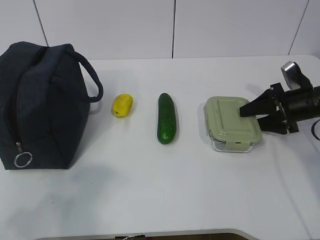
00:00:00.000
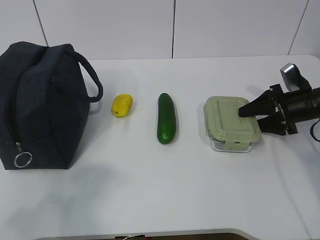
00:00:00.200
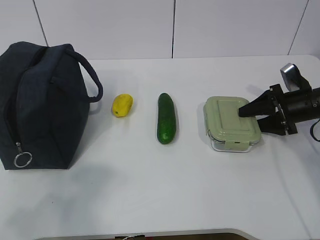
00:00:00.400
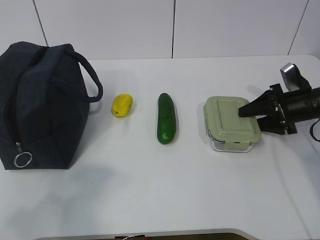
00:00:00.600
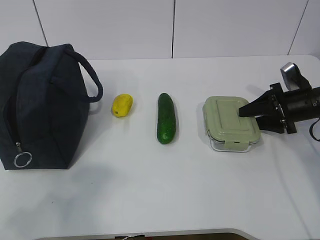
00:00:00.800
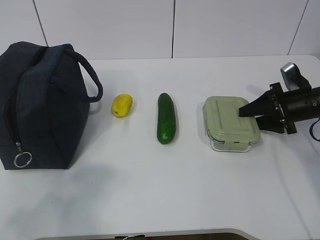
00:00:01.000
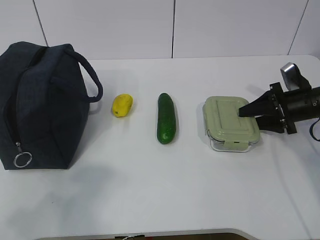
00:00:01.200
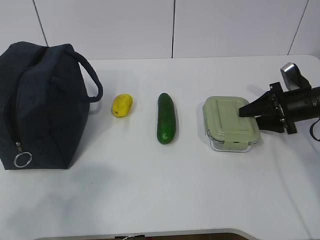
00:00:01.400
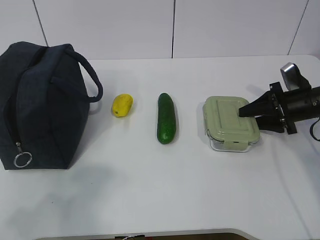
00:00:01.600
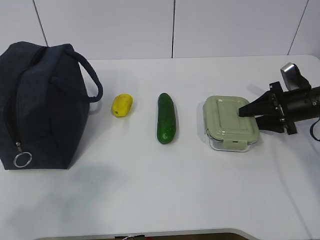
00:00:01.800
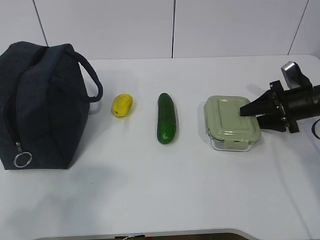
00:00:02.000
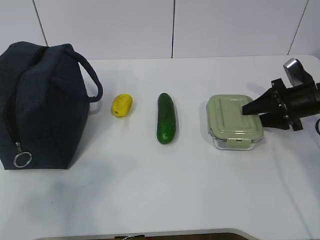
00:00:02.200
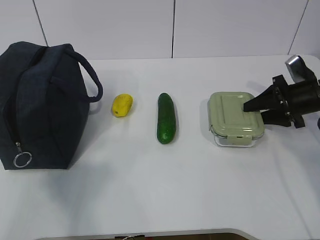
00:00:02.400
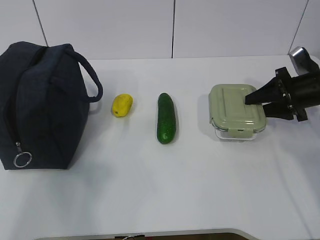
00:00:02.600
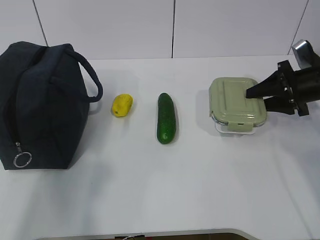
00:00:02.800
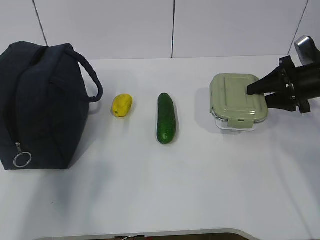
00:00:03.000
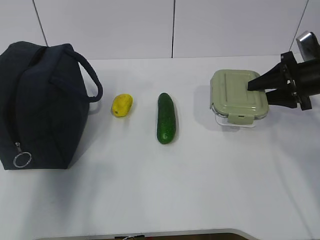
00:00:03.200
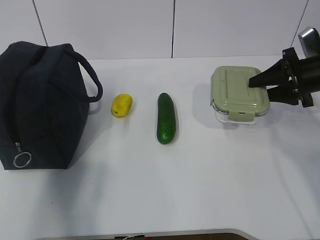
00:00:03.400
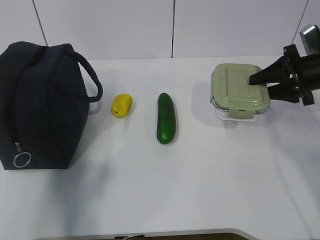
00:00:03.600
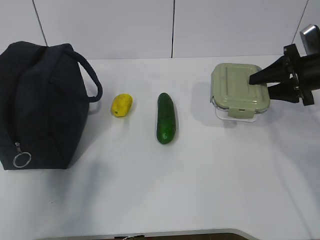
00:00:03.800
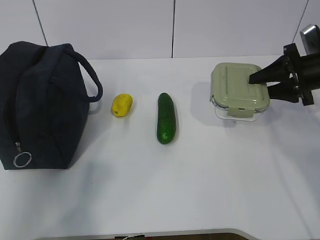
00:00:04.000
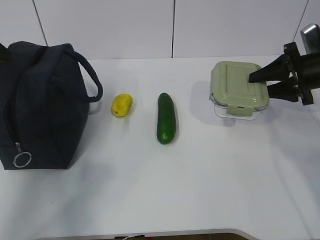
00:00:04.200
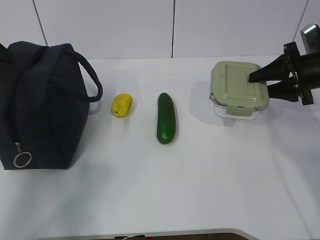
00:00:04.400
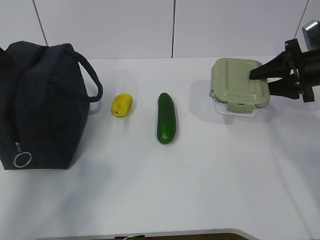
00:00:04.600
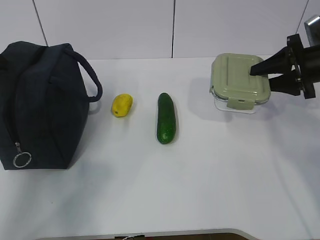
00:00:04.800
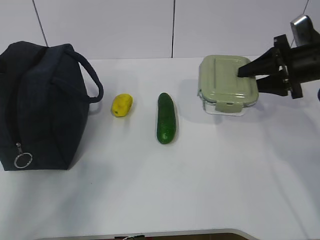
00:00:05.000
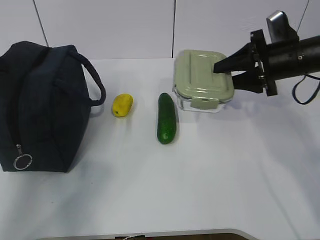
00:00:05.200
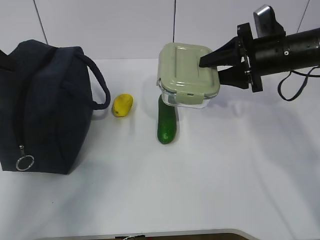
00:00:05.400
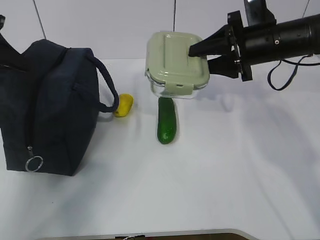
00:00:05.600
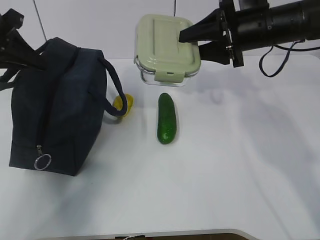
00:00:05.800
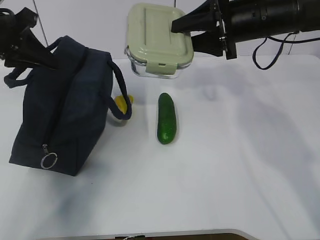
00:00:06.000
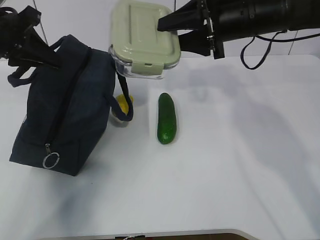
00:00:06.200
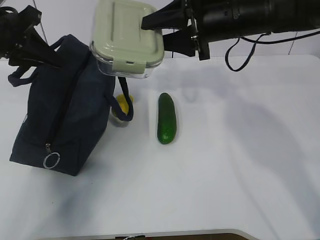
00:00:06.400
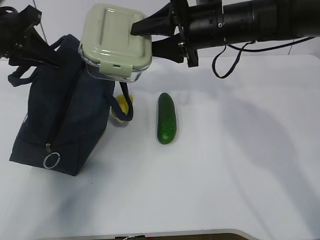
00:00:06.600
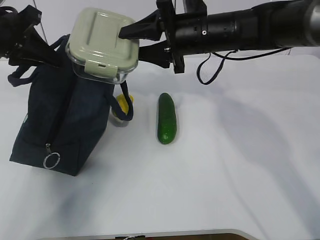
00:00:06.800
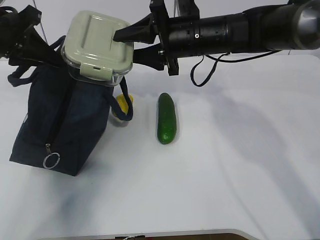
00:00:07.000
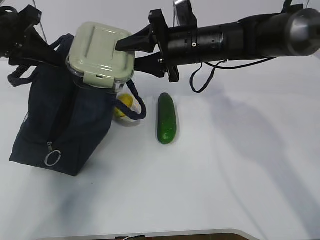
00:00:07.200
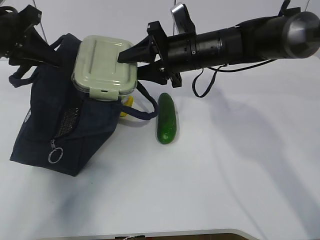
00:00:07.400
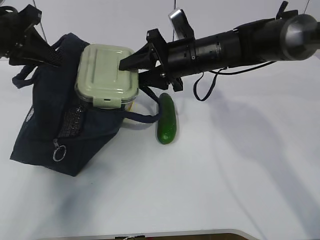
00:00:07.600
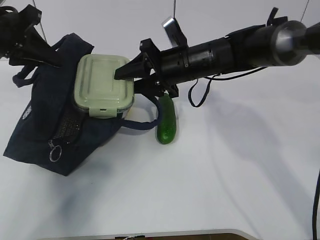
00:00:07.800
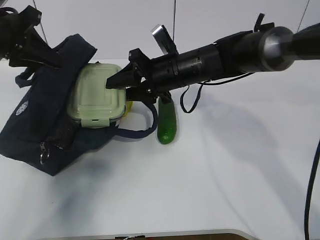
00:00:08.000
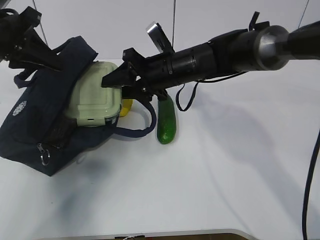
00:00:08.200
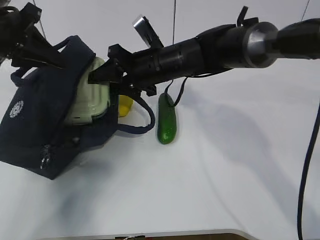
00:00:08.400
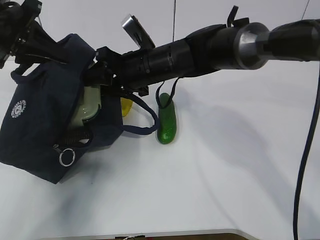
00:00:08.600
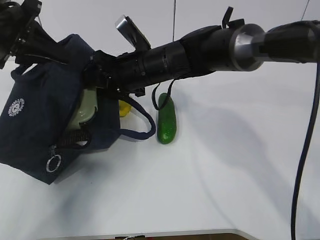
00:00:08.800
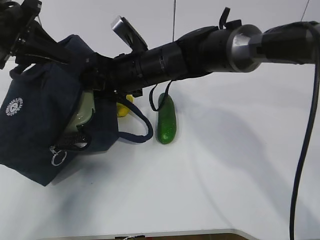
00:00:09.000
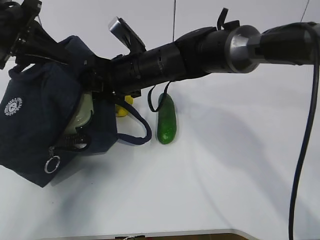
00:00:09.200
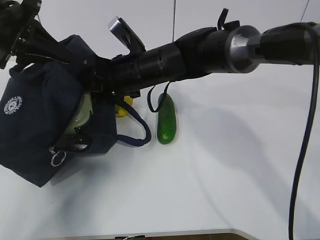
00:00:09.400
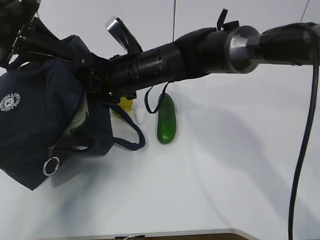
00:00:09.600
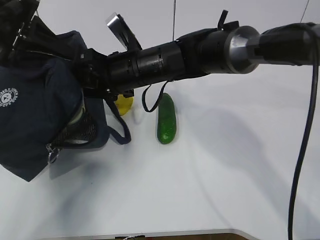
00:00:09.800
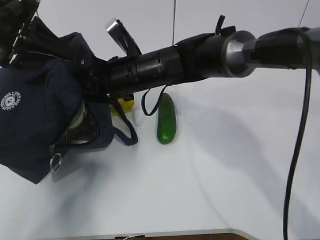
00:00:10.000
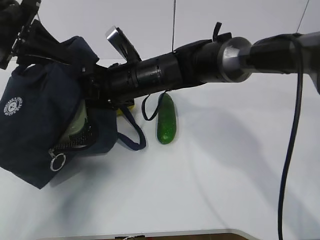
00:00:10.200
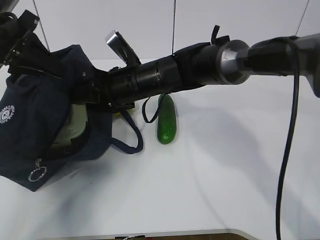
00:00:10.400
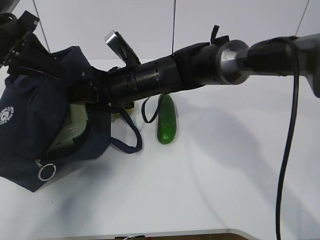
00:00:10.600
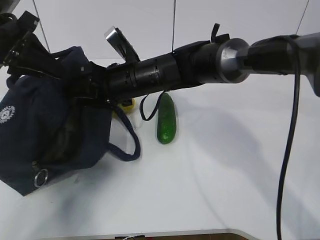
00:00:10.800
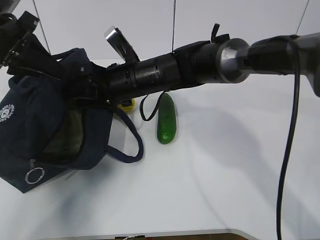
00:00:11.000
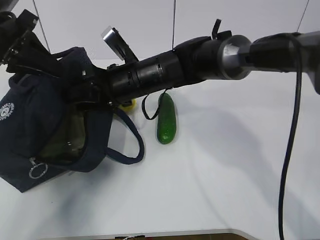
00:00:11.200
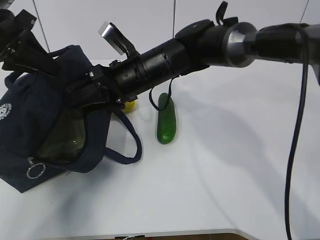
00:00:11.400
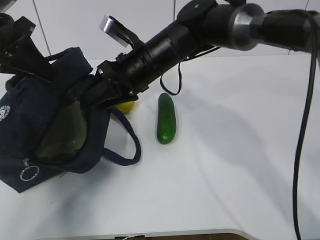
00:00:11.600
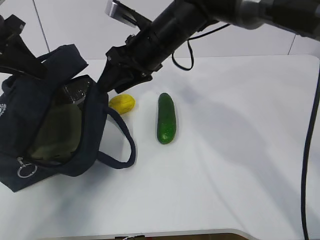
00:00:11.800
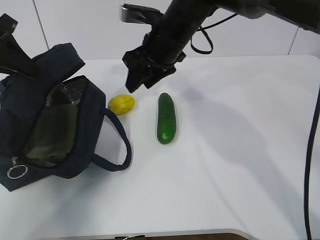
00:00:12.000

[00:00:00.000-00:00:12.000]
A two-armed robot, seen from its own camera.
Step, 00:00:00.000 to 00:00:04.600: Grab the lunch bag with your left hand.
Step, 00:00:04.800 to 00:00:08.200: Place it into the bag with your right hand.
Step, 00:00:08.400 to 00:00:10.600: Grab the cucumber with your right hand.
00:00:00.000 to 00:00:01.600: Both grippers stay put.
00:00:01.600 to 00:00:03.000: The left gripper travels forward and upward by about 15 cm. Meanwhile the right gripper travels upward by some 5 cm.
00:00:03.000 to 00:00:04.400: The left gripper goes roughly 20 cm forward.
00:00:04.400 to 00:00:06.000: The right gripper moves to the left and upward, some 15 cm; the left gripper travels to the right by approximately 10 cm, and closes its fingers.
00:00:06.000 to 00:00:07.600: The right gripper moves to the left and downward, about 10 cm.
00:00:07.600 to 00:00:09.000: The right gripper travels to the left by about 10 cm.
00:00:10.400 to 00:00:12.000: The right gripper moves upward and to the right, about 10 cm.

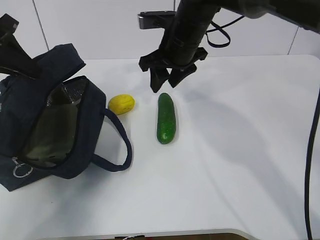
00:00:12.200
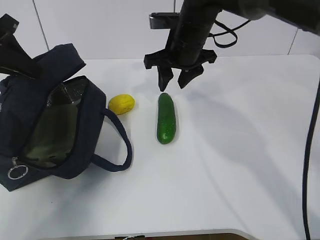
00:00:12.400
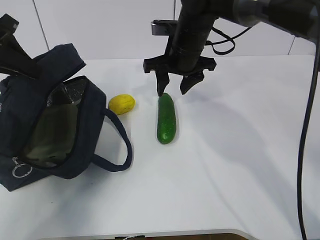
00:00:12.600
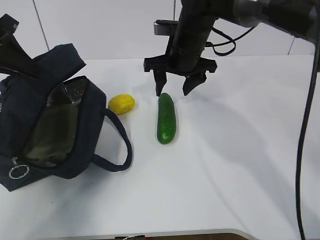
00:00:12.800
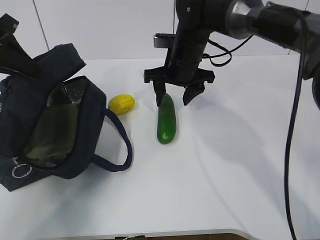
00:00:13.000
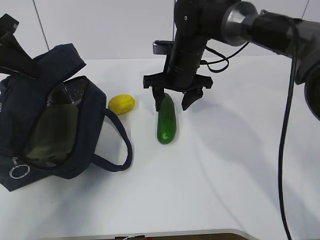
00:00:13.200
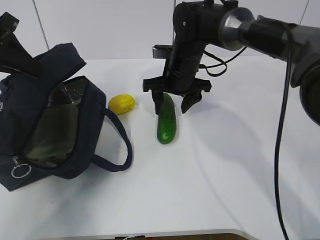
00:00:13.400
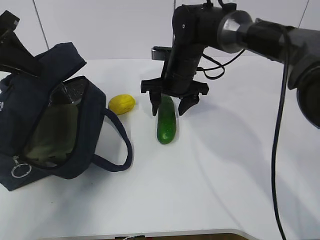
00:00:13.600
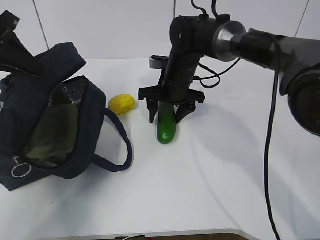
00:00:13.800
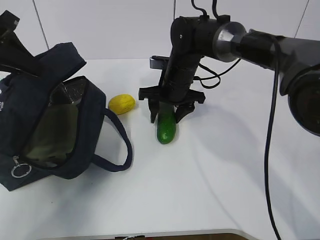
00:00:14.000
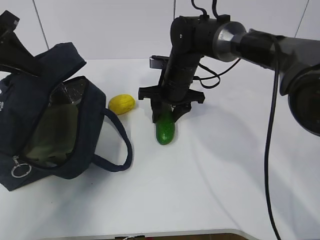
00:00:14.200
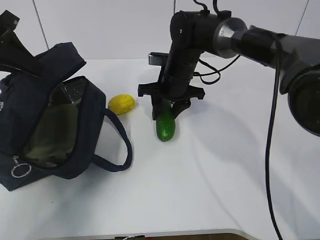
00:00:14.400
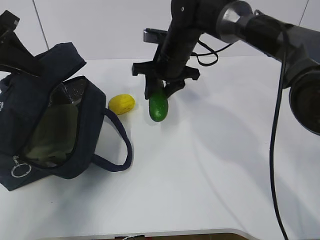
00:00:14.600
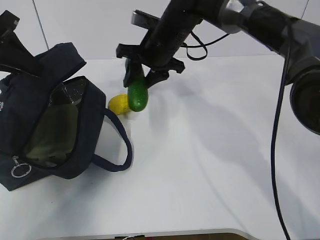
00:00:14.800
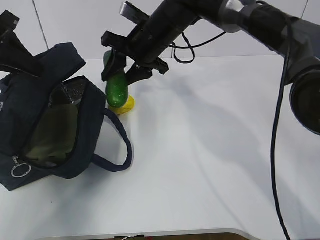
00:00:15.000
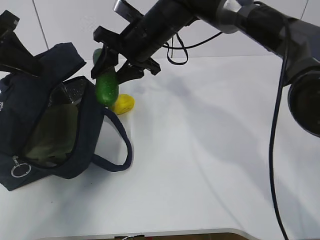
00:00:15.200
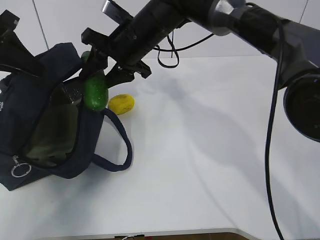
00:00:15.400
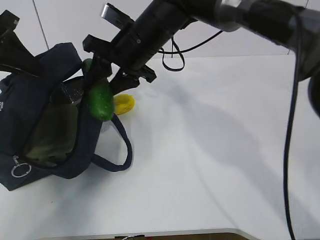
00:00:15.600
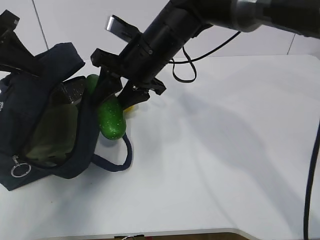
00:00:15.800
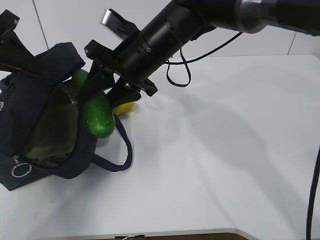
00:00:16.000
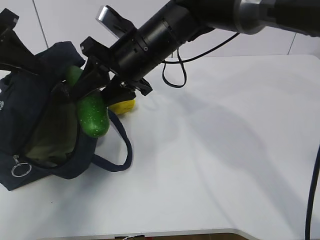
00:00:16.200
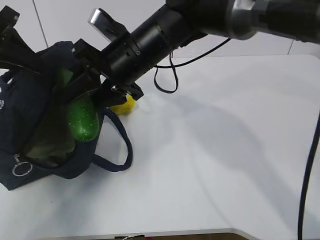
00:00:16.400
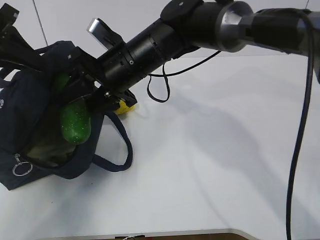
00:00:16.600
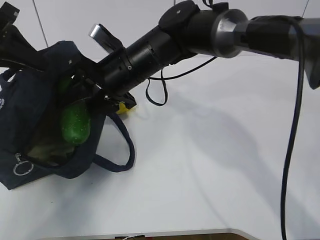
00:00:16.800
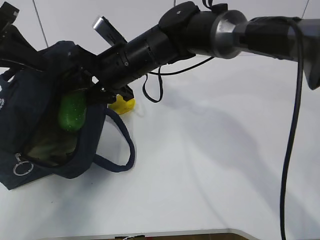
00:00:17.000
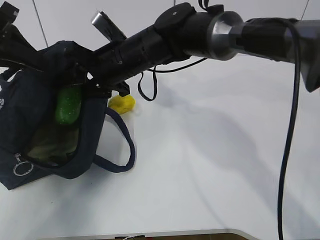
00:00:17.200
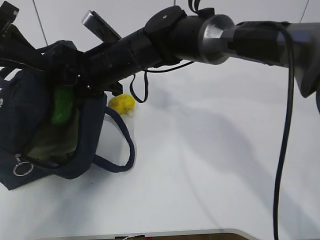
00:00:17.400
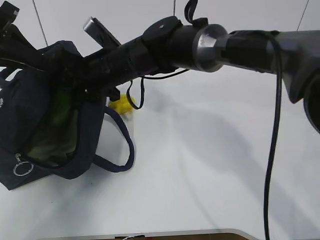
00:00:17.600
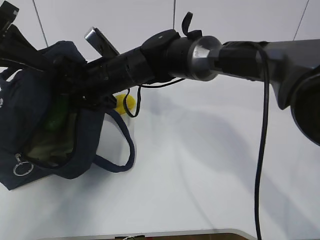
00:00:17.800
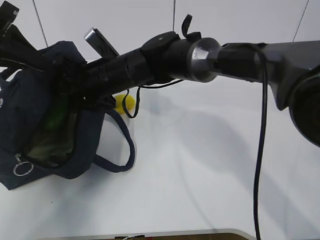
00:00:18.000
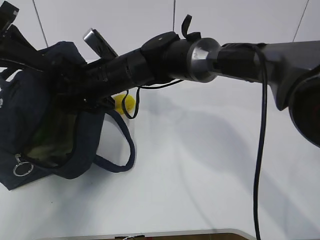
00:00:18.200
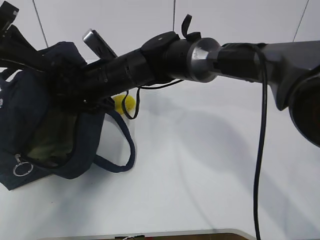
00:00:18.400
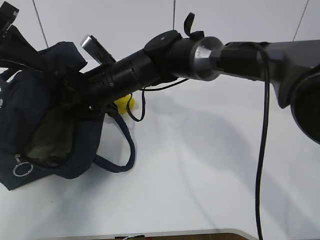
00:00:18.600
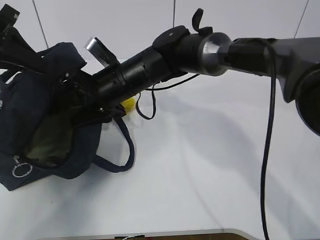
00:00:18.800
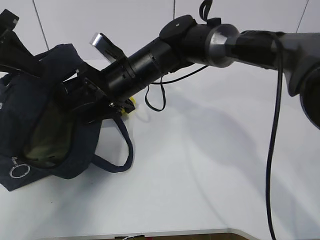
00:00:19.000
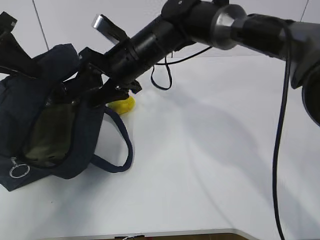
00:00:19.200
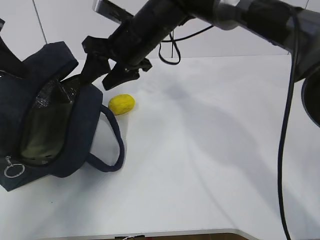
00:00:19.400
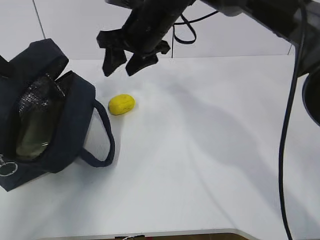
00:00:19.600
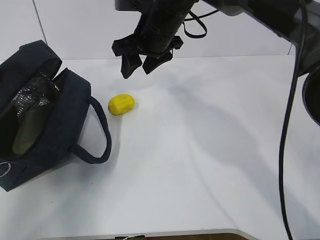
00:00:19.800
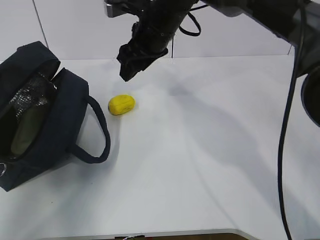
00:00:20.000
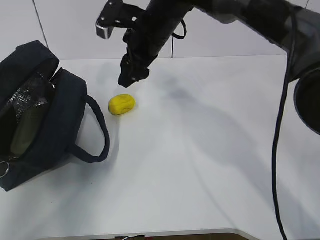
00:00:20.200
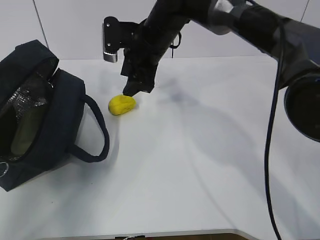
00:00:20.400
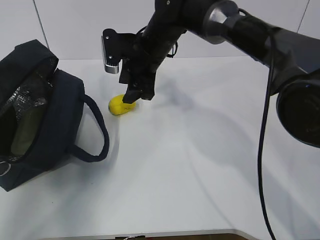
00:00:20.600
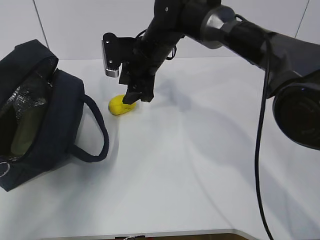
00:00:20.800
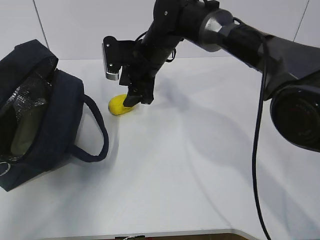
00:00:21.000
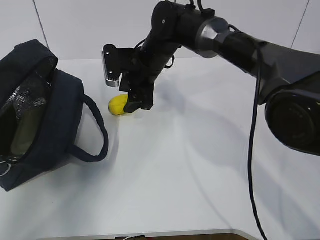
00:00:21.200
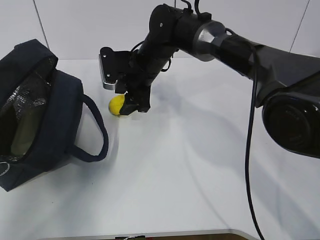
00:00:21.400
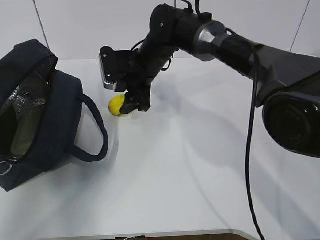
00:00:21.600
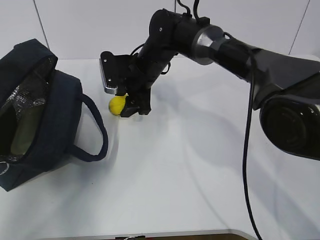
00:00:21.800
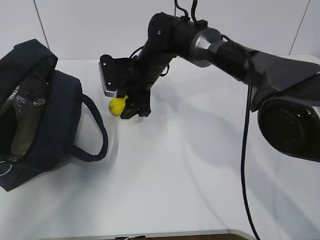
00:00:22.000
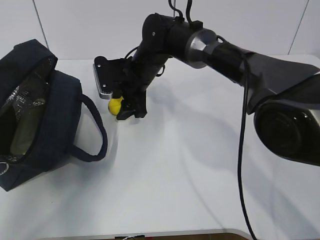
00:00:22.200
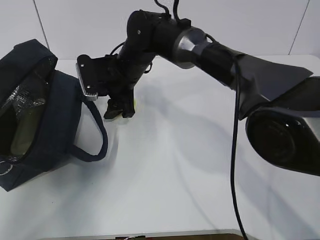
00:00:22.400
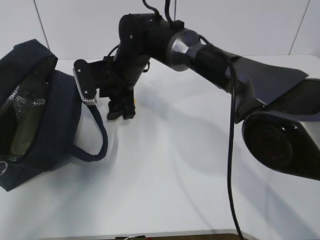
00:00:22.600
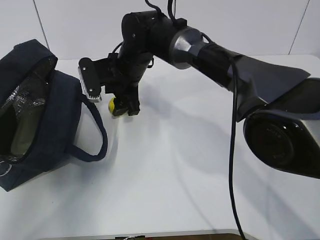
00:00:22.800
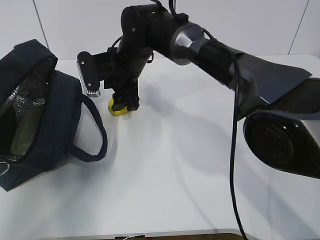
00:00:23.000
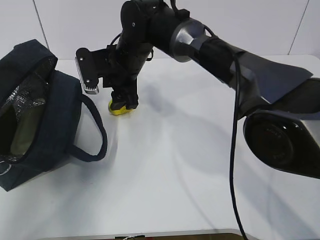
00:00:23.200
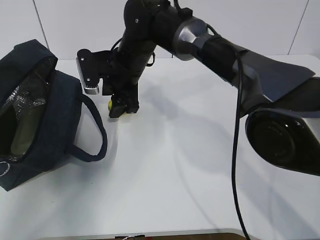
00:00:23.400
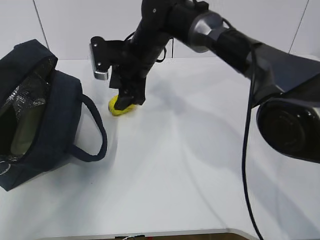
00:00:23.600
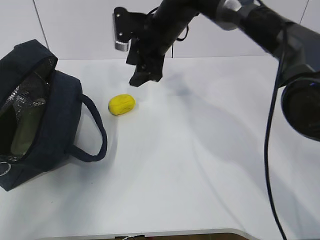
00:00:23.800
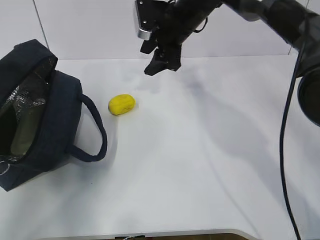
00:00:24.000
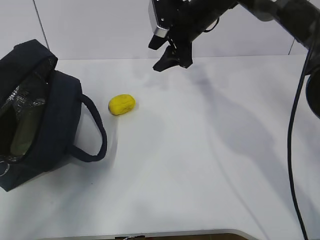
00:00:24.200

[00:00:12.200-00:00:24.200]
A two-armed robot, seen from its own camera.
Step, 00:00:12.200 to 00:00:14.200: Place it into the bag with your right hand.
00:00:12.200 to 00:00:13.800: The right gripper heads downward, covering roughly 10 cm.
00:00:13.800 to 00:00:15.200: The right gripper shifts some 10 cm upward and to the left.
00:00:15.200 to 00:00:16.600: The right gripper travels backward by about 5 cm.
00:00:16.600 to 00:00:18.200: The right gripper moves roughly 5 cm.
00:00:18.200 to 00:00:19.800: The right gripper goes approximately 10 cm to the right and upward; the left gripper heads to the left, covering roughly 5 cm.
00:00:19.800 to 00:00:21.200: The right gripper is displaced downward by roughly 10 cm.
00:00:22.600 to 00:00:24.200: The right gripper heads to the right and upward, covering about 15 cm.
